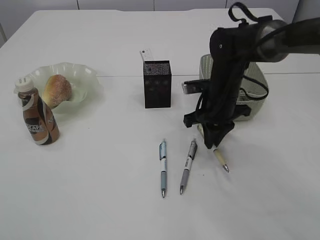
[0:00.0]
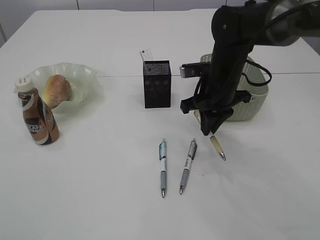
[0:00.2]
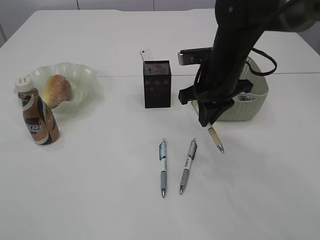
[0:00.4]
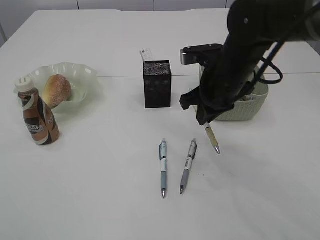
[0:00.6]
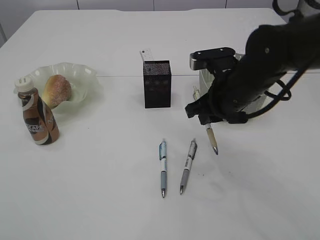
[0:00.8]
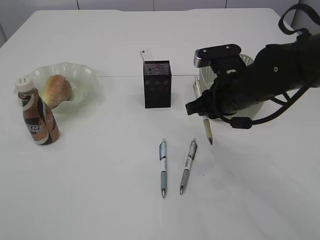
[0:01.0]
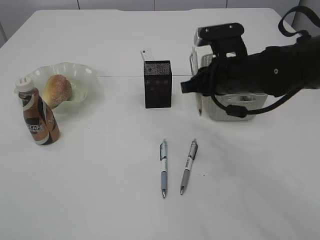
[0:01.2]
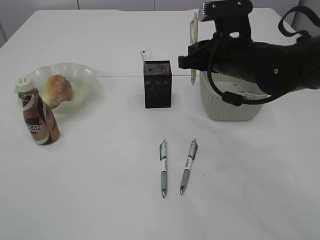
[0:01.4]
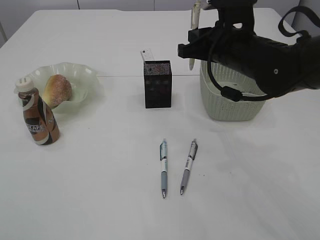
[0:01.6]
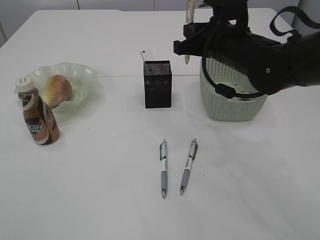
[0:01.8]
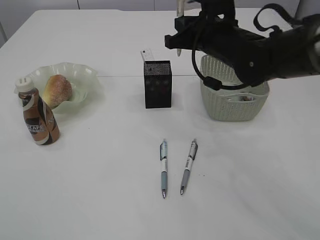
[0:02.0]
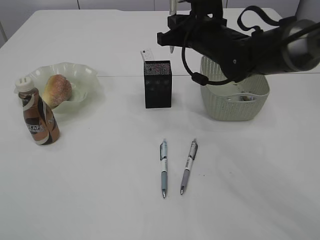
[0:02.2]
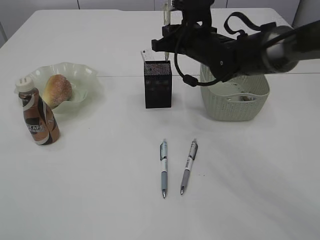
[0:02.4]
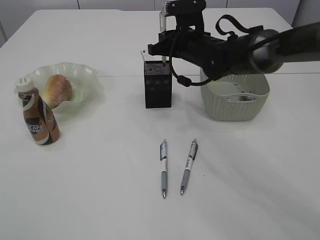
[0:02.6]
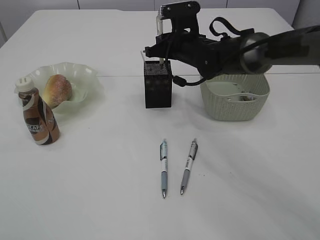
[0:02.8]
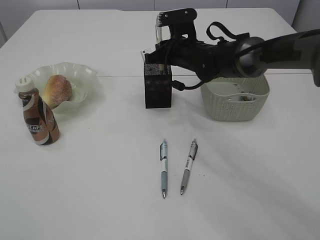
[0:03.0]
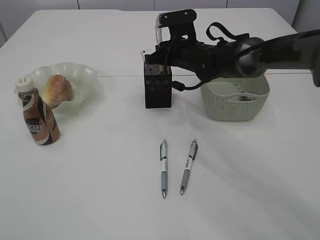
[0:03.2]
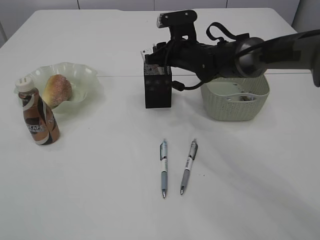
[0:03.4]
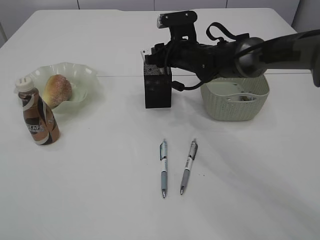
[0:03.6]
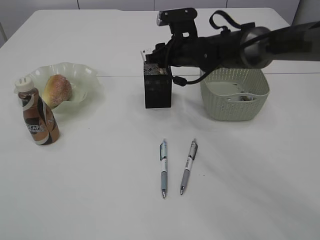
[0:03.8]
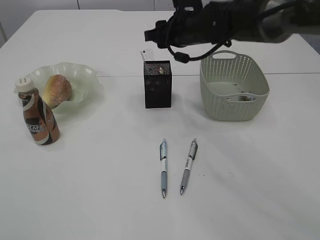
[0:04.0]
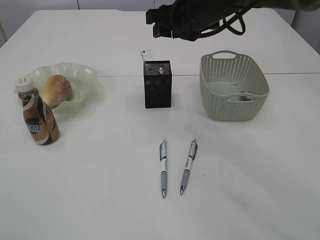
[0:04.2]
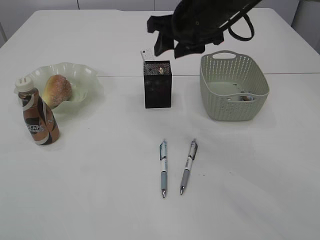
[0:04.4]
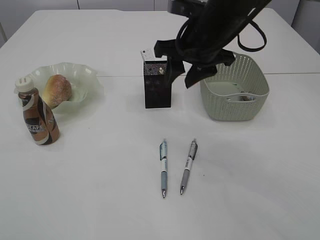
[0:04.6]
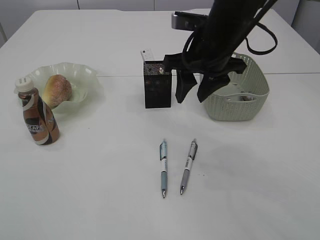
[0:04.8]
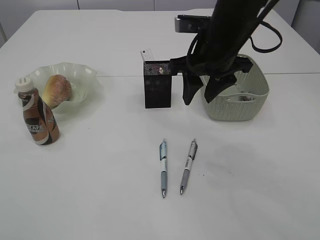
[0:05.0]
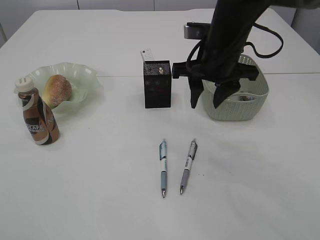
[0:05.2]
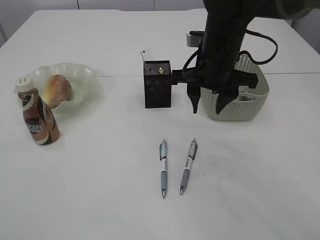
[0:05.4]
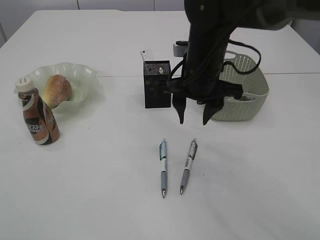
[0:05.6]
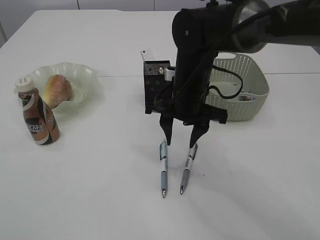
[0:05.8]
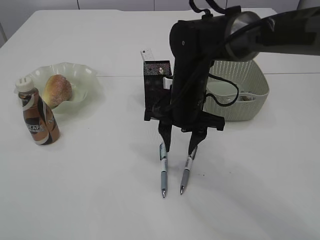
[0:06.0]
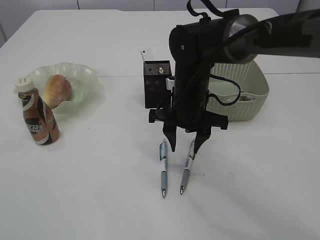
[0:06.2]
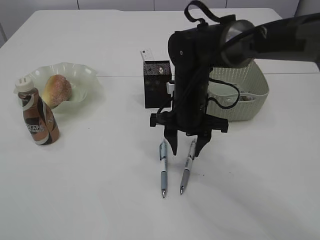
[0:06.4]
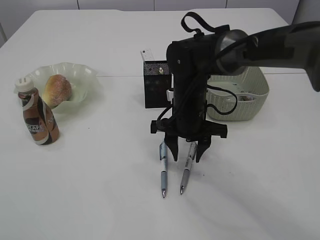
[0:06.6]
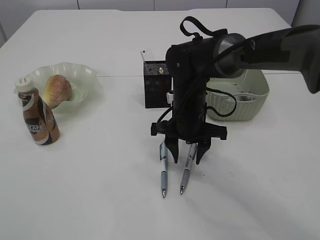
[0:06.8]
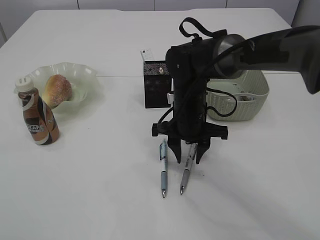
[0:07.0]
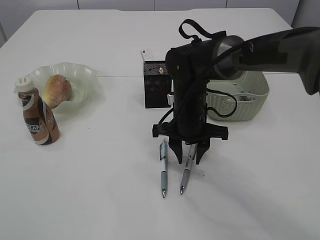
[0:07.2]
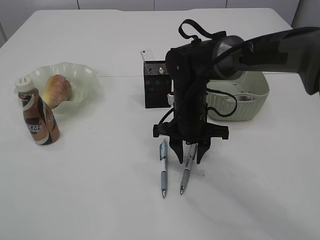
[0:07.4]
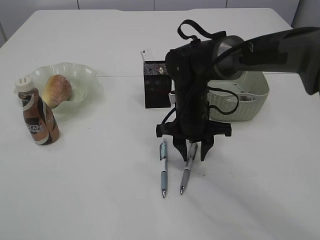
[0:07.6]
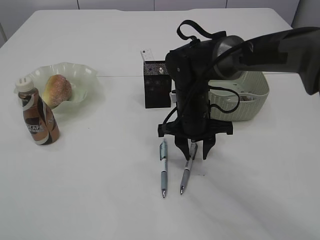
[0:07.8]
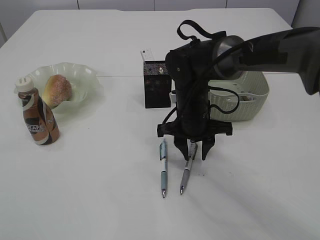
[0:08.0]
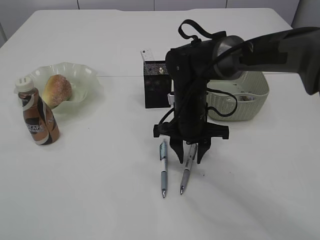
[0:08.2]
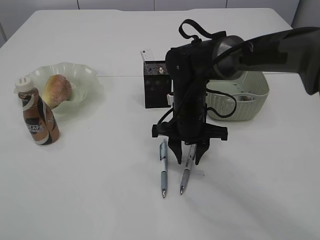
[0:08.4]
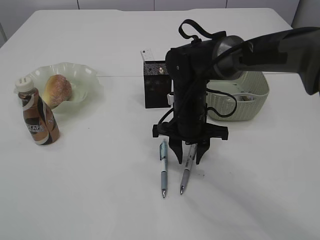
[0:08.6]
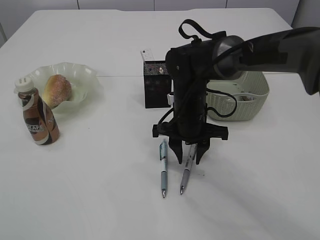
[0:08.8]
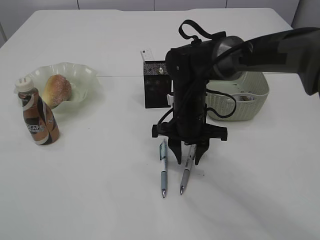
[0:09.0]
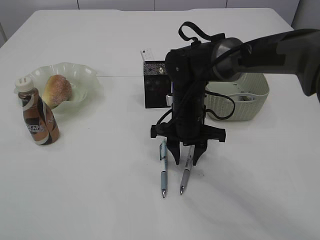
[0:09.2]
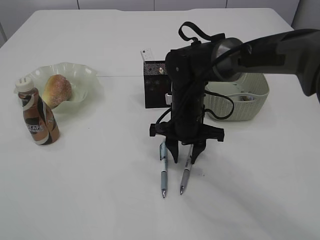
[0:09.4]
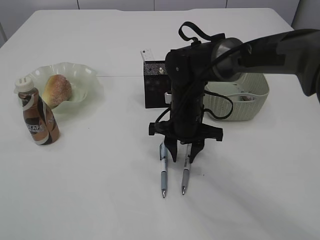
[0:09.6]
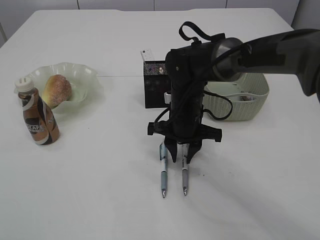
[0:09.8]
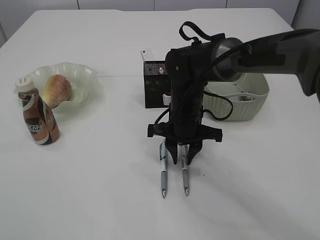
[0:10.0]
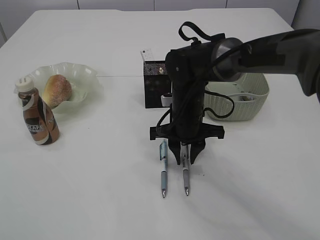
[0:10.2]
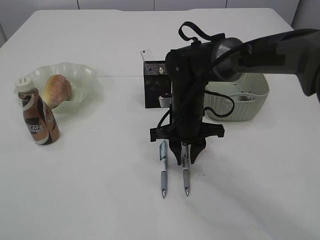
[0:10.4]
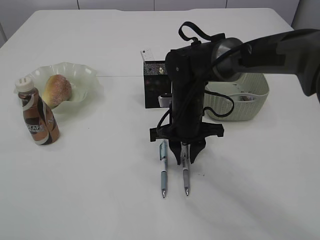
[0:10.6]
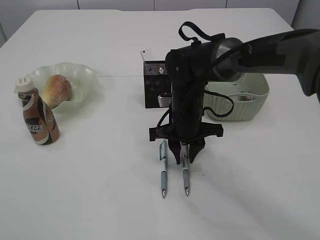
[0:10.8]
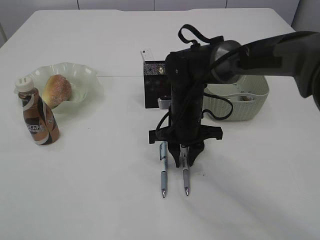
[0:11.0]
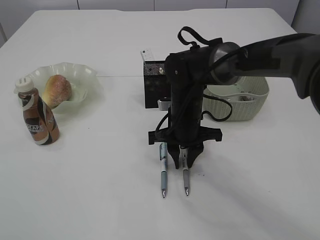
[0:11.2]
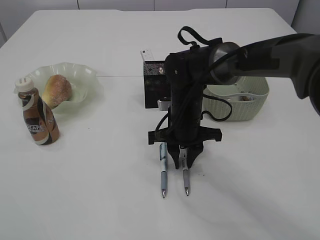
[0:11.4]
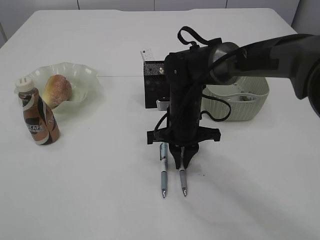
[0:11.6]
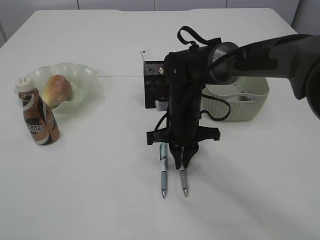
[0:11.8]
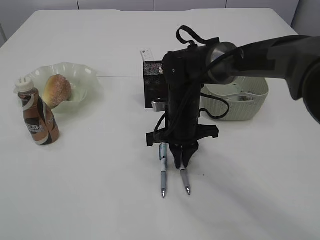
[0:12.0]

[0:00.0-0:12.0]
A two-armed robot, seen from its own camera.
Step, 0:00.4 to 0:04.0: Place the pen into the pen holder.
0:00.0 to 0:01.6: The right gripper heads upward, covering approximately 10 cm.
0:01.6 to 0:03.0: The right gripper moves forward, downward and to the left, approximately 15 cm.
0:03.0 to 0:04.4: The right gripper travels upward and backward by some 15 cm, and opens up.
0:04.4 to 0:06.0: The right gripper is displaced downward by some 10 cm.
0:06.0 to 0:07.6: The grippers stay close to where they were, moving slightly.
0:07.6 to 0:09.0: Both grippers stay put.
0:09.0 to 0:12.0: The grippers make only small movements.

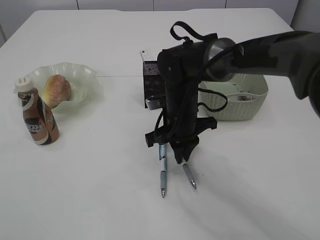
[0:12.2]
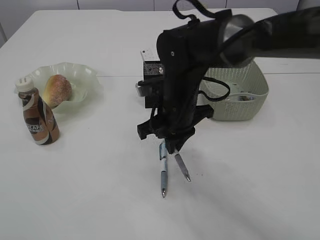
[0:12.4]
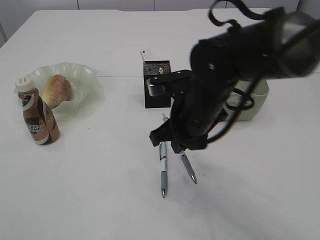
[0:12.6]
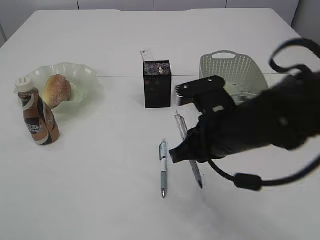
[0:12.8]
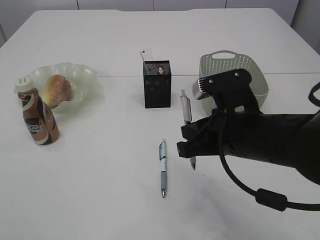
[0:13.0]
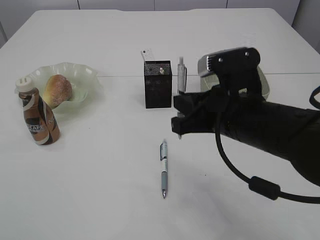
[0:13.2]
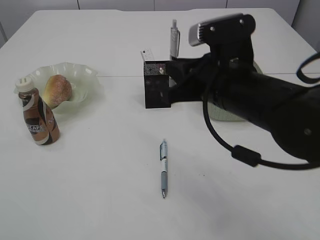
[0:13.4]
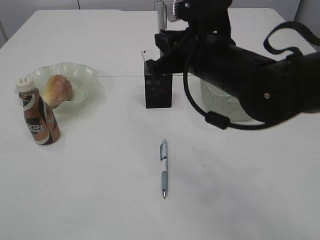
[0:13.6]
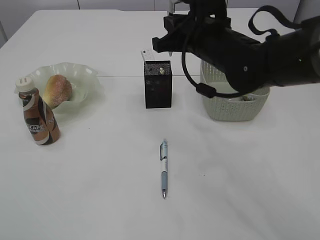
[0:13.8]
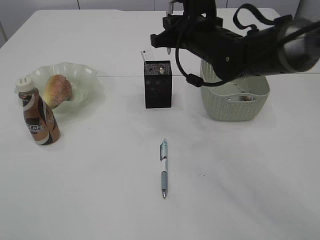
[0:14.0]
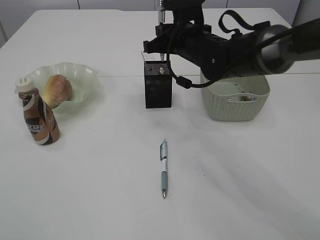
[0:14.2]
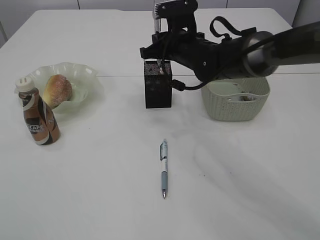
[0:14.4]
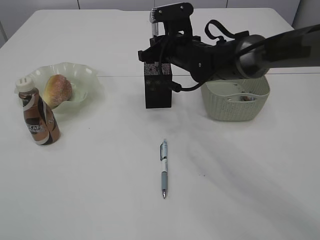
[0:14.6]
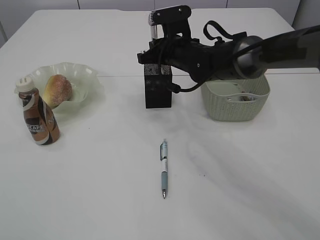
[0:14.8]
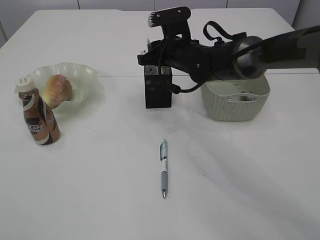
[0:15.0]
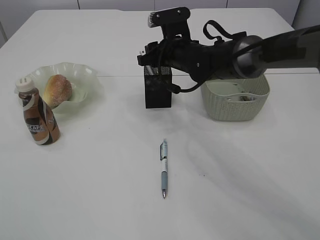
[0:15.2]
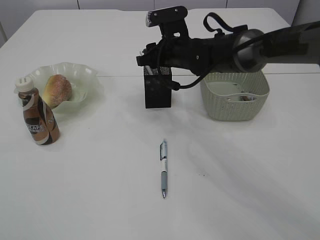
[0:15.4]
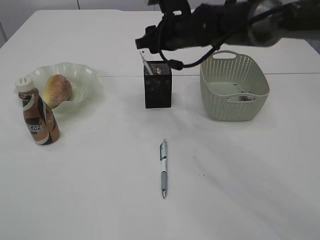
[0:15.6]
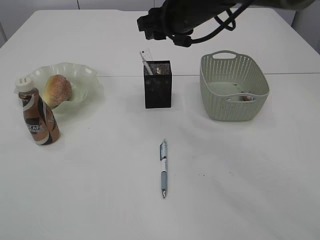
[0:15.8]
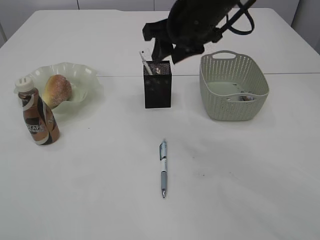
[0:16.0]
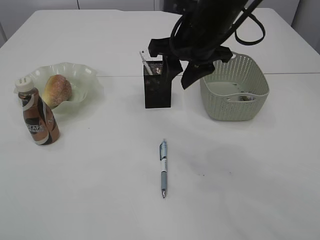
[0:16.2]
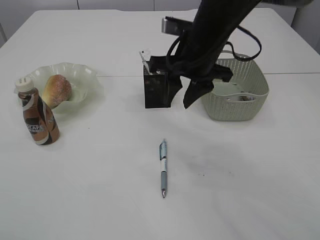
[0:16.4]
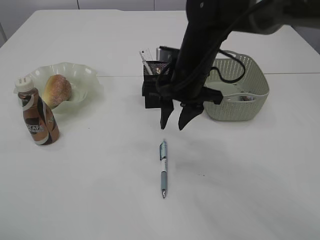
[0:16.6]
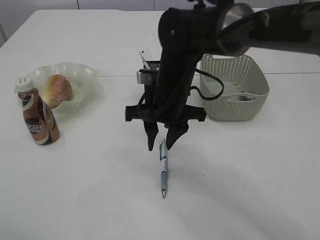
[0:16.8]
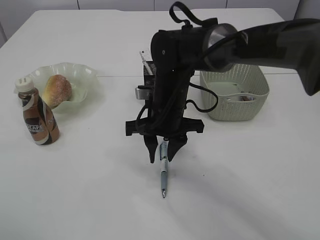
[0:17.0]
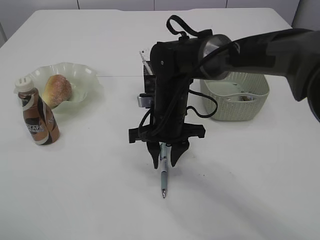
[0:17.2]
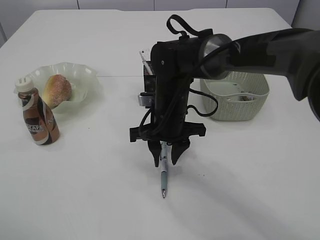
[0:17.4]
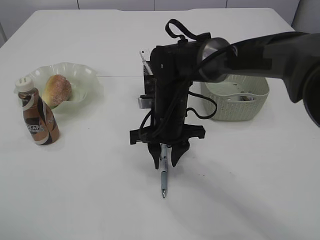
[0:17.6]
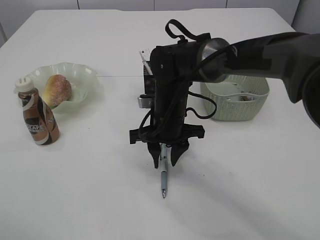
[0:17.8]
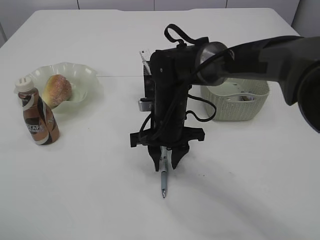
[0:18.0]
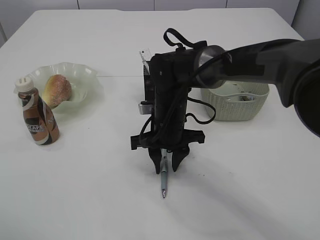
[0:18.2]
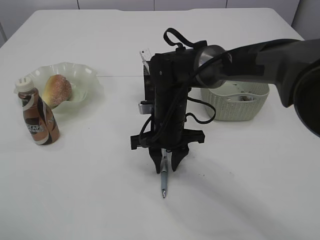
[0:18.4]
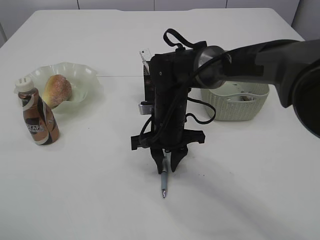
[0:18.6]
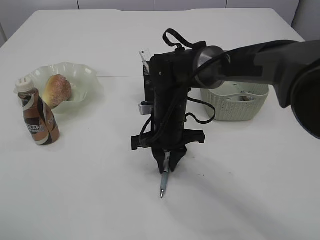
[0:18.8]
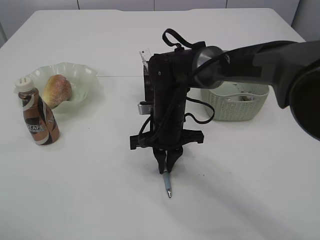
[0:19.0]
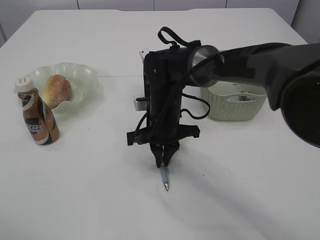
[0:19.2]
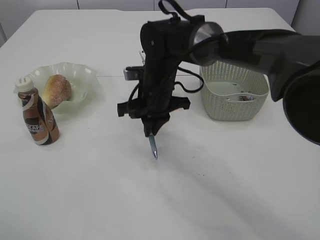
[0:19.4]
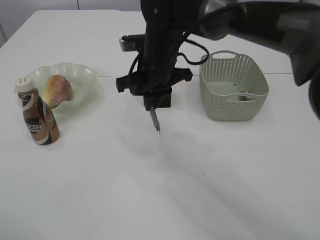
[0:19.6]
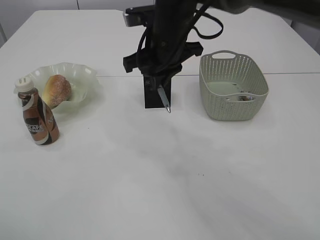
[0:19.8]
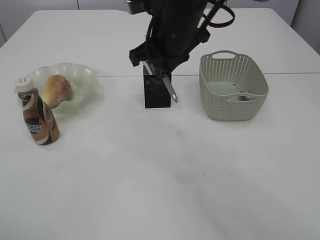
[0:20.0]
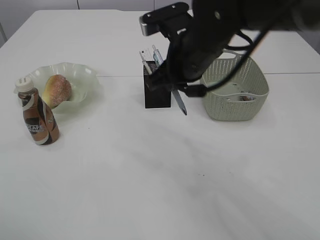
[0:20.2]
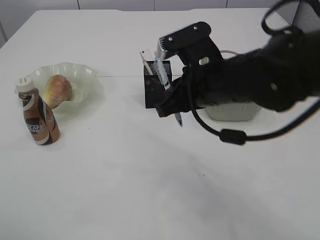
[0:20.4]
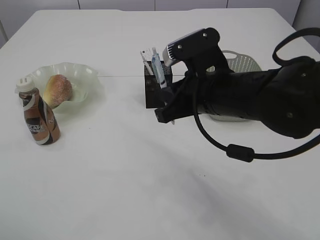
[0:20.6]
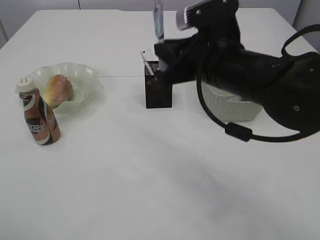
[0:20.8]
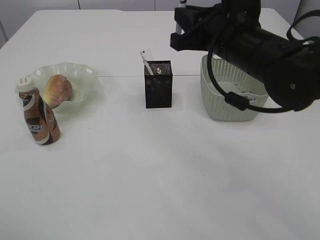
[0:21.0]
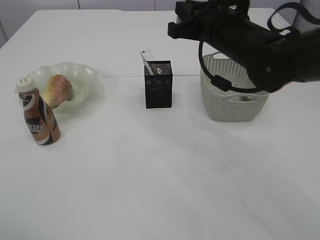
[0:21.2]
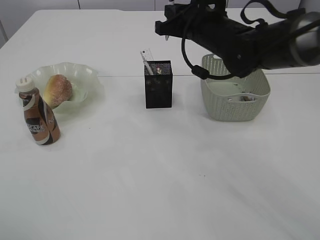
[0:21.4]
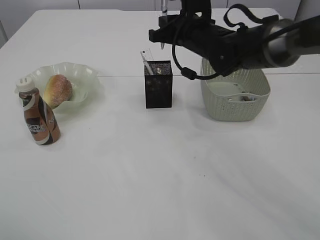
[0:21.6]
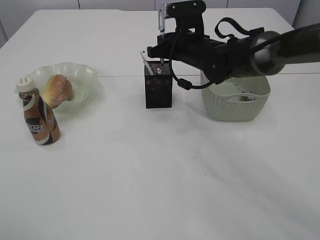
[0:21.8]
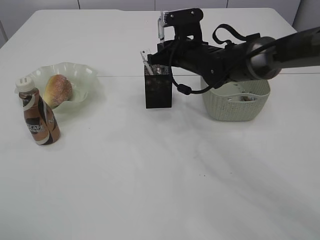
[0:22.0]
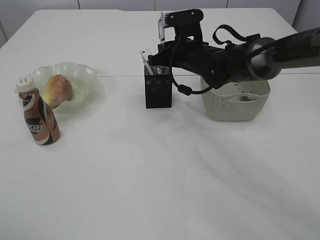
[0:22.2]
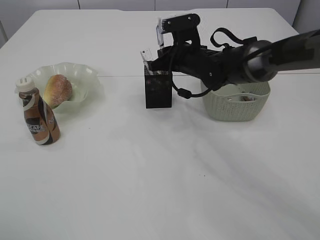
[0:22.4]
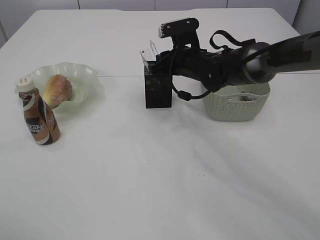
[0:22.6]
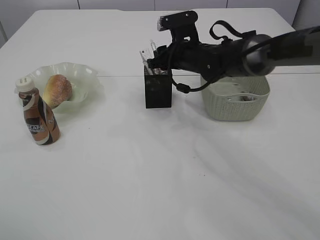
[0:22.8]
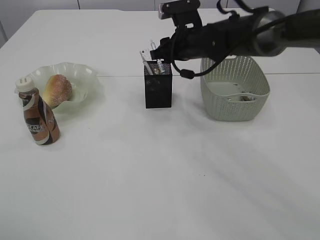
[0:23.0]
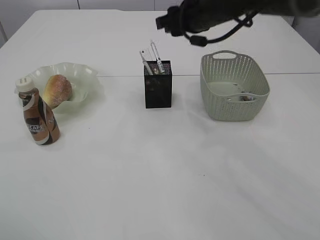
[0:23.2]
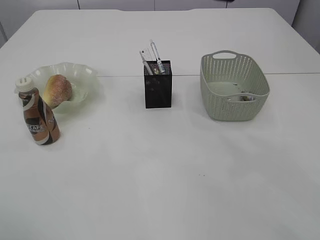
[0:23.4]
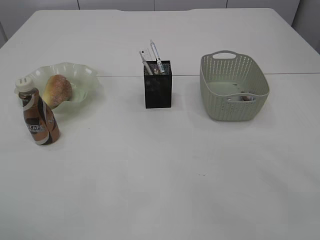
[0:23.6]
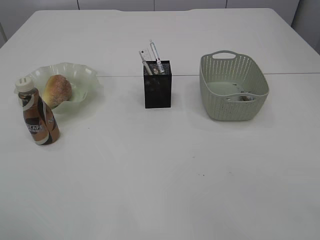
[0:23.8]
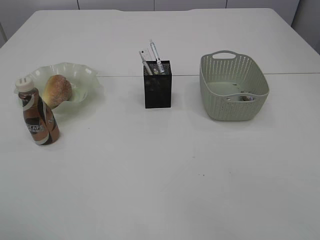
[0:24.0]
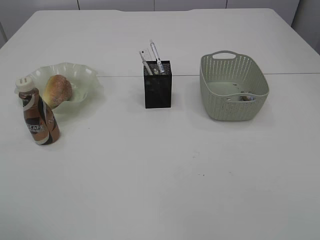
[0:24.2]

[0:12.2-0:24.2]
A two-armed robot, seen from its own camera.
Step, 0:12.8 to 0:15.6: Place the pen into the pen holder.
Step, 0:15.8 to 0:19.6: Pick up the pen with right arm.
Step, 0:19.8 to 0:23.2: Place the pen into the pen holder.
0:12.2 to 0:13.8: The right gripper is displaced upward by roughly 15 cm, and reaches some 15 cm backward, then returns.
0:13.8 to 0:15.2: The right gripper goes about 10 cm forward and downward, and opens.
0:15.2 to 0:16.6: The right gripper moves backward, some 10 cm, and reaches approximately 10 cm upward, then returns.
0:16.6 to 0:18.2: The right gripper moves downward, roughly 10 cm.
0:18.2 to 0:19.8: The right gripper goes about 15 cm upward, and closes its fingers.
0:19.8 to 0:21.2: The right gripper travels to the right by approximately 10 cm, and travels backward and back again, some 10 cm each way.
0:21.2 to 0:22.6: The right gripper goes roughly 15 cm forward and downward.
0:22.6 to 0:24.2: The left gripper opens up. The right gripper travels upward and backward by roughly 50 cm, and opens its fingers.
